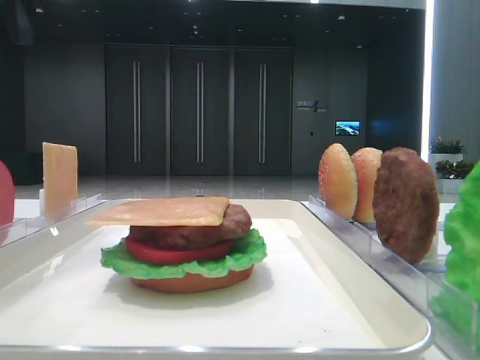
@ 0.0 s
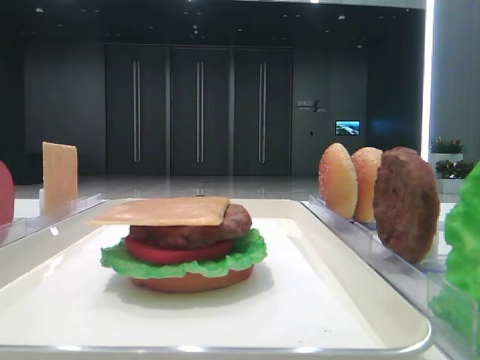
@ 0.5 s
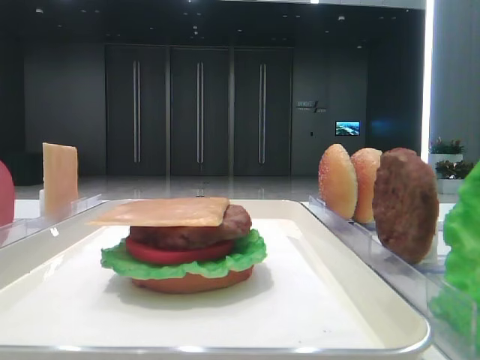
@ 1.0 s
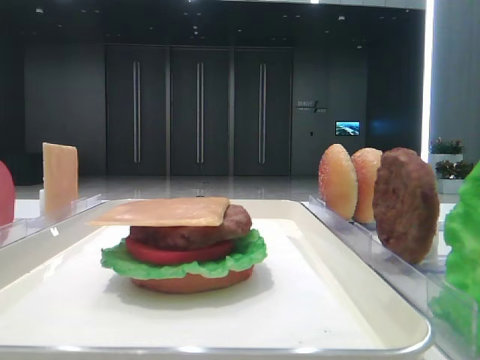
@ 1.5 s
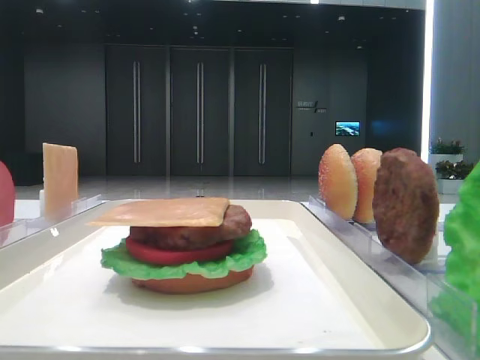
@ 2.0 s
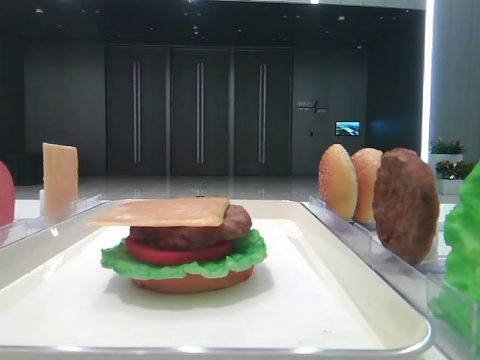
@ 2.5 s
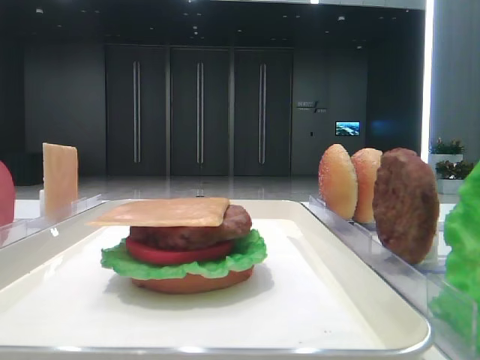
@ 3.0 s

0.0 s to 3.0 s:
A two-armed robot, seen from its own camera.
0.0 to 1.5 s: The left gripper moves backward and to the left, roughly 25 cm.

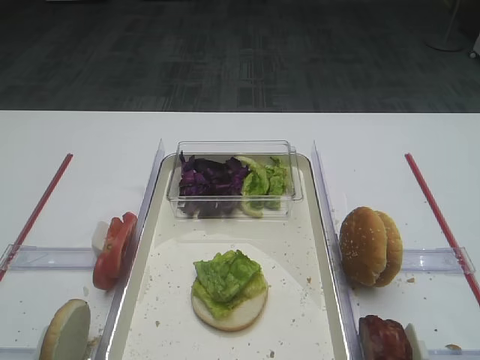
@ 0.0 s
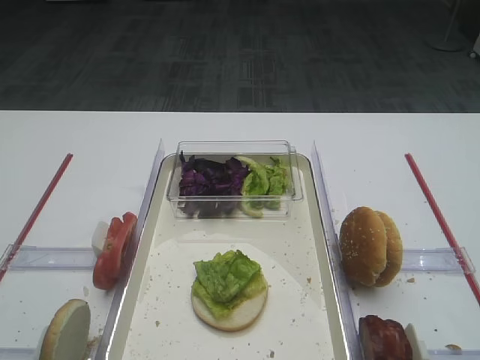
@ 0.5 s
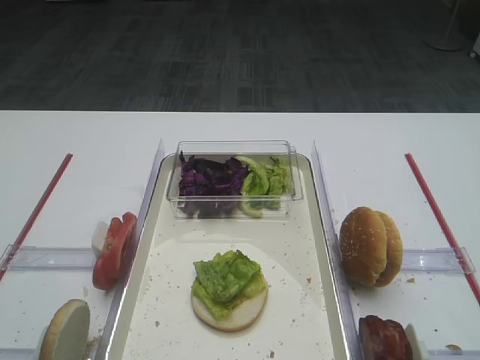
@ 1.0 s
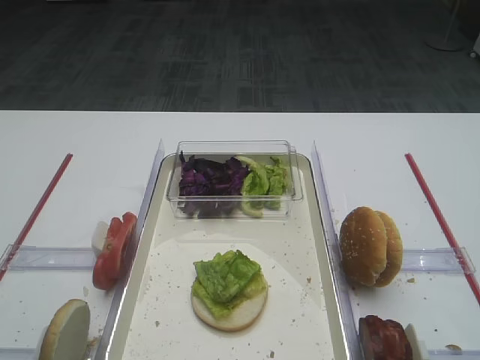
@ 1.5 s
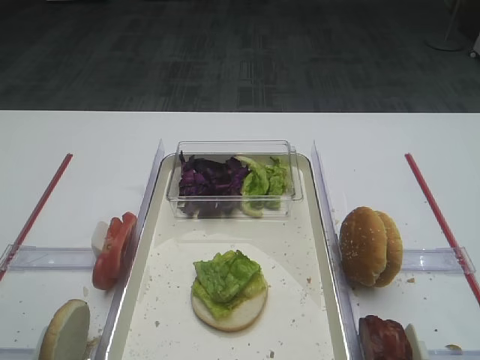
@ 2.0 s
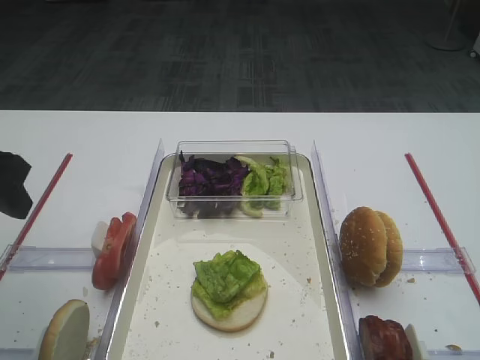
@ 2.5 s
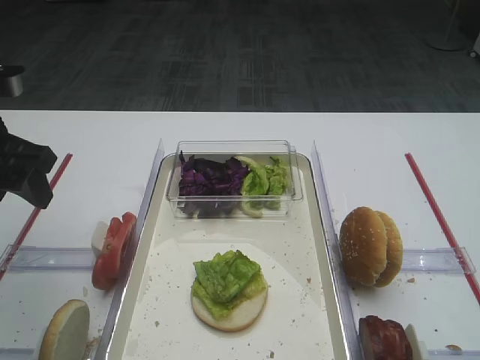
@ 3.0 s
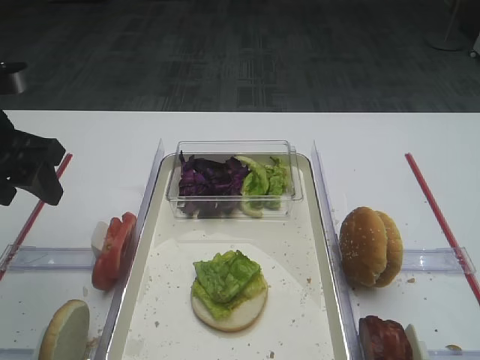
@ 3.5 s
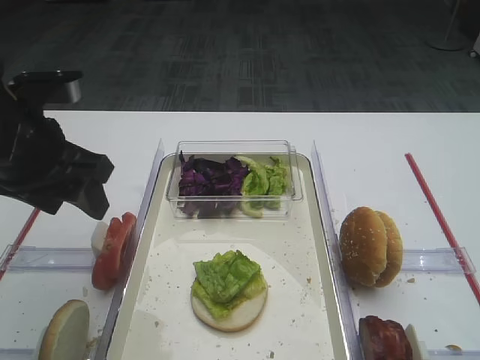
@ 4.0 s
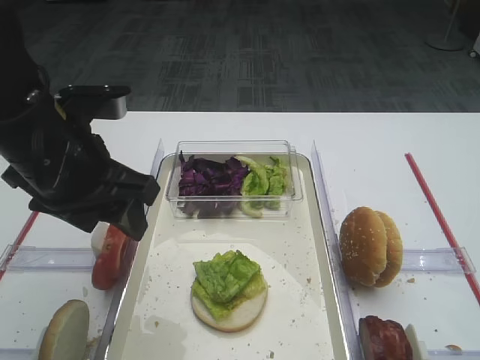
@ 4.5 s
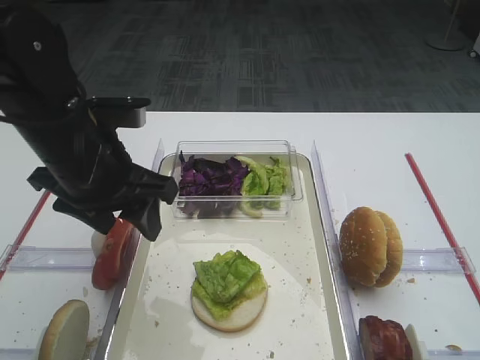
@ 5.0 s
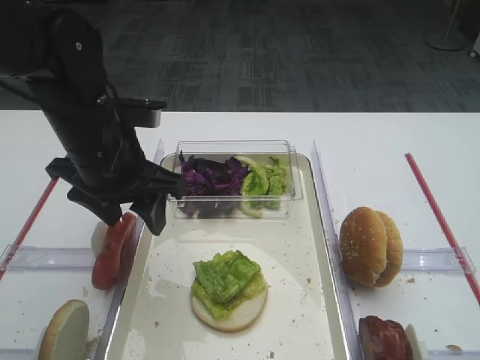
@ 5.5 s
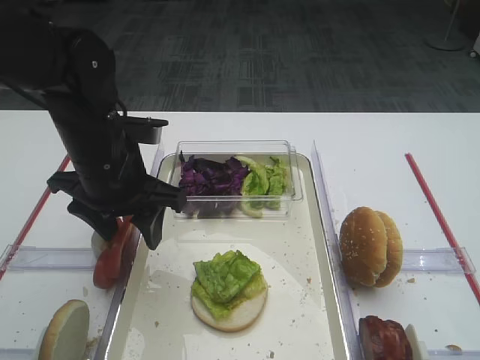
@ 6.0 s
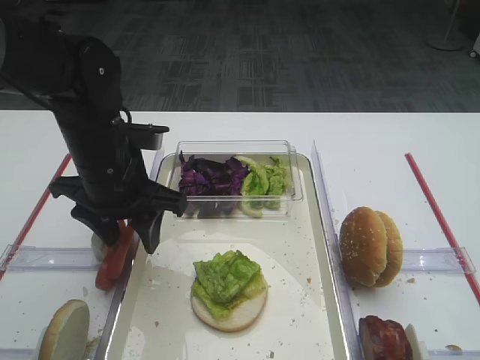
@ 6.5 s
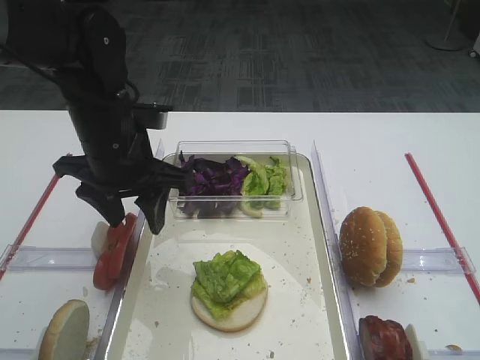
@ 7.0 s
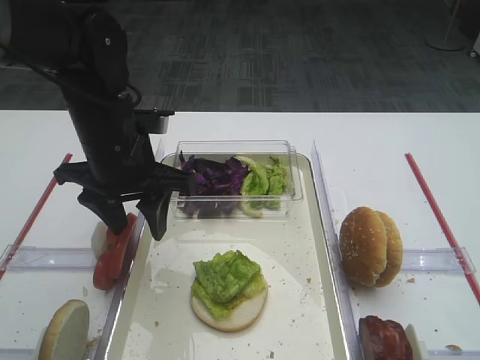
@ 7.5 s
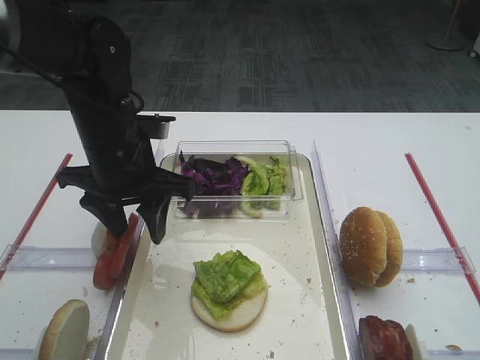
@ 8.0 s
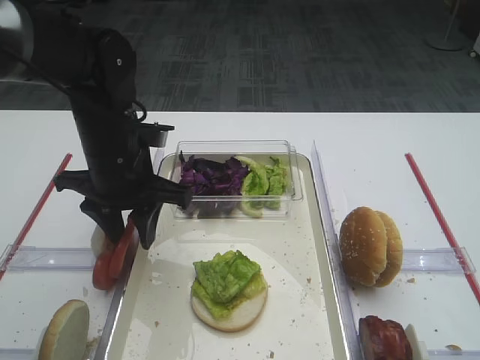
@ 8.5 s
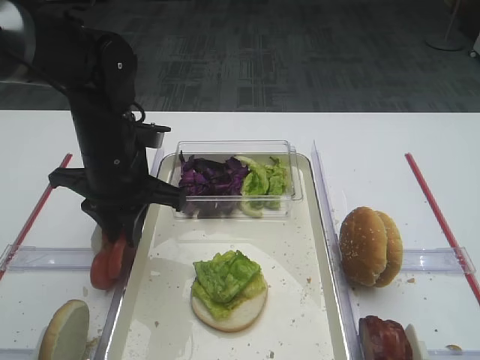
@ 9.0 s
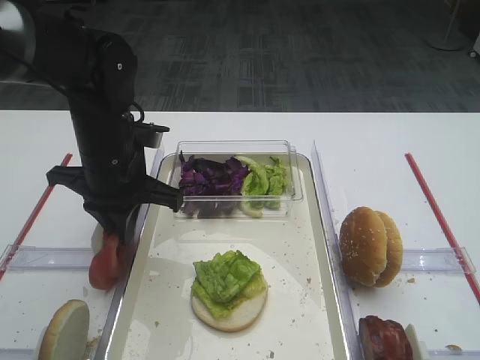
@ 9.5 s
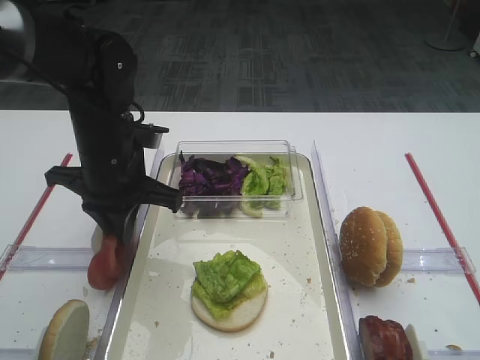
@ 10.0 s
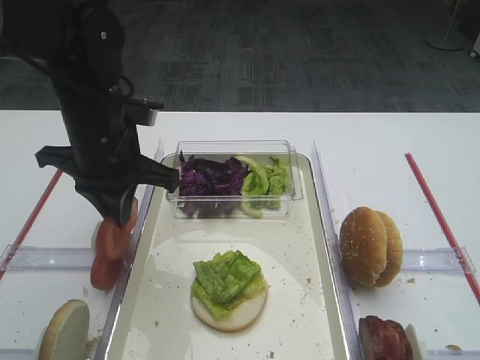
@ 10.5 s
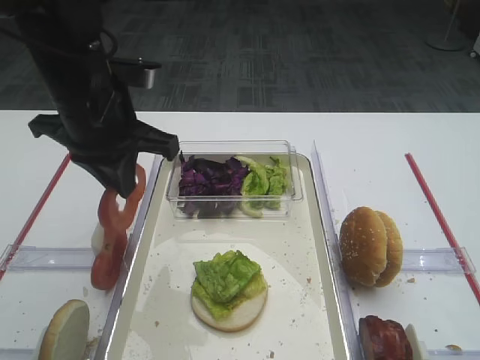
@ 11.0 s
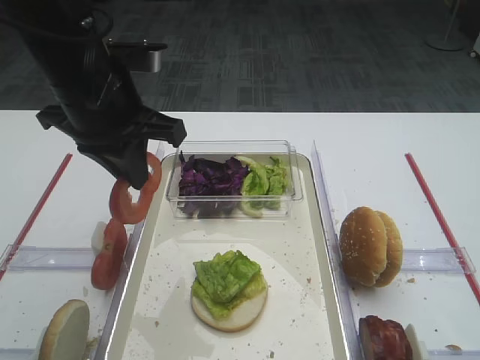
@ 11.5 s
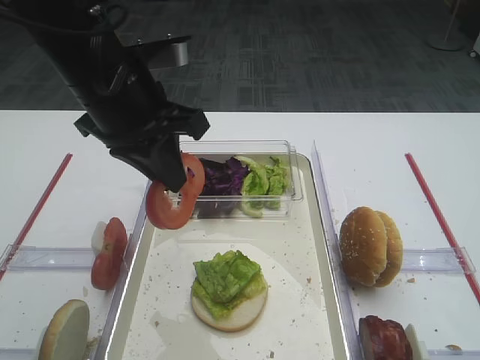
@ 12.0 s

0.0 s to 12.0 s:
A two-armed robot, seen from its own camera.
Step, 0.0 to 11.0 s: Pick up the tomato slice with the left gripper.
2.0 to 4.0 s: The left gripper moves forward and downward, approximately 20 cm.
4.0 to 6.0 s: The left gripper heads to the right, covering about 5 cm.
6.0 to 8.0 s: There are only small adjustments of the grippers.
8.0 to 10.0 s: The left gripper closes.
10.0 to 12.0 s: The left gripper goes roughly 10 cm upward.

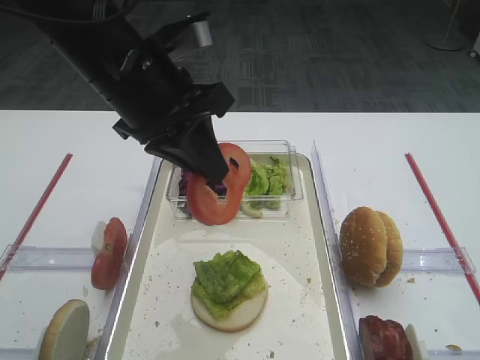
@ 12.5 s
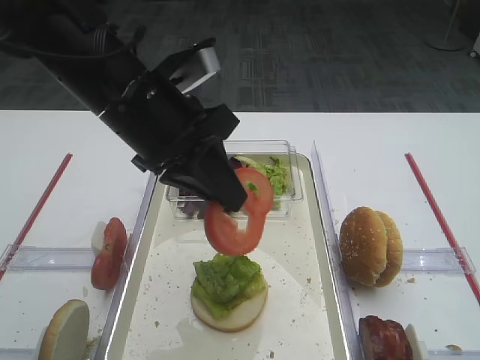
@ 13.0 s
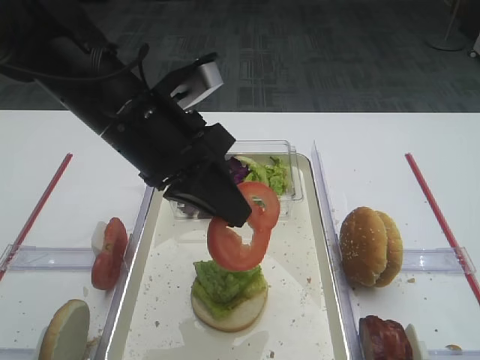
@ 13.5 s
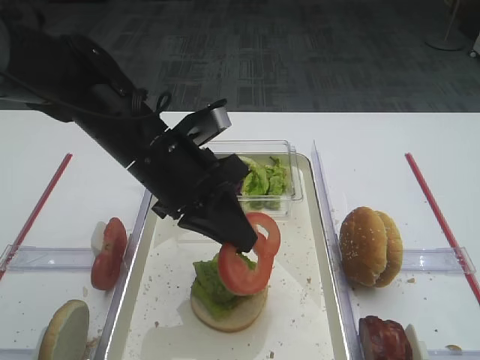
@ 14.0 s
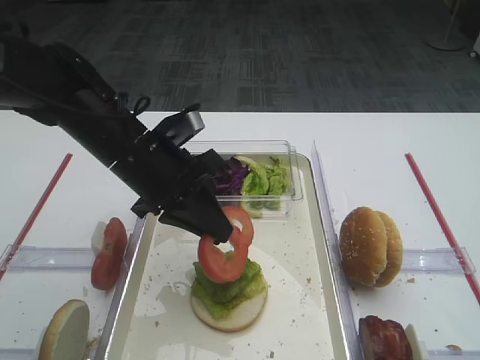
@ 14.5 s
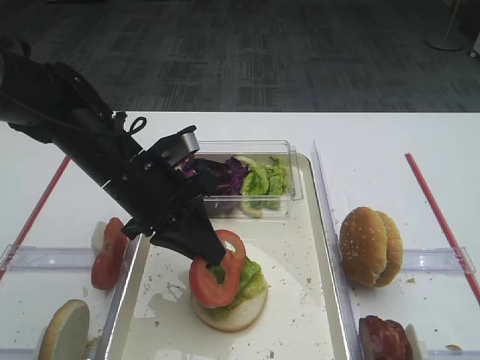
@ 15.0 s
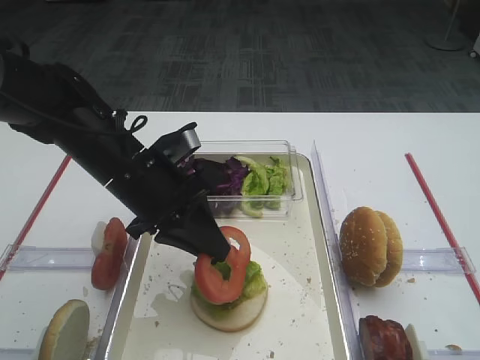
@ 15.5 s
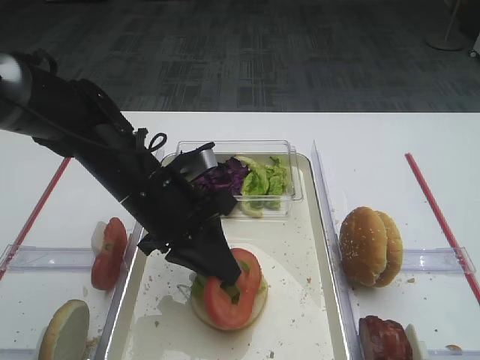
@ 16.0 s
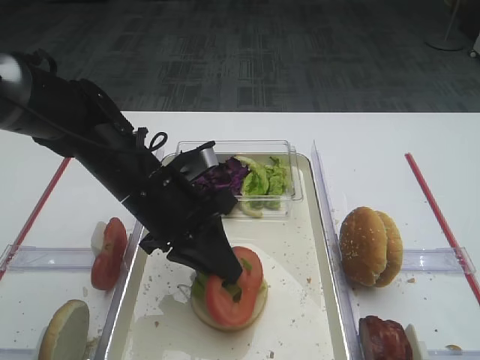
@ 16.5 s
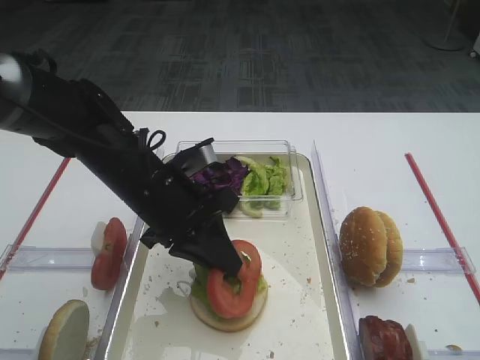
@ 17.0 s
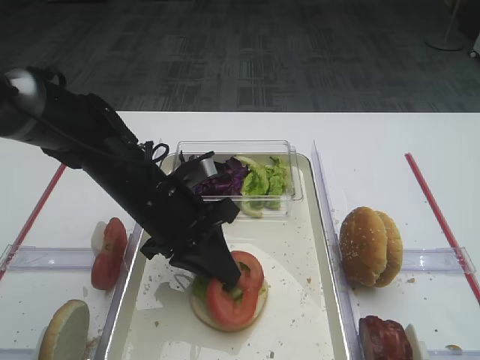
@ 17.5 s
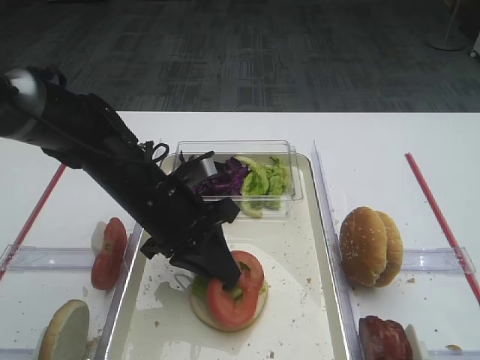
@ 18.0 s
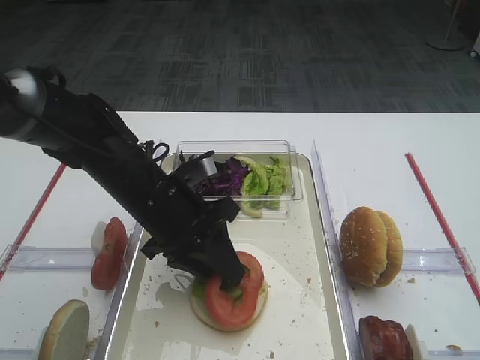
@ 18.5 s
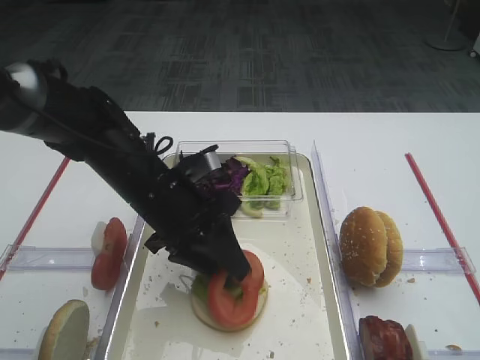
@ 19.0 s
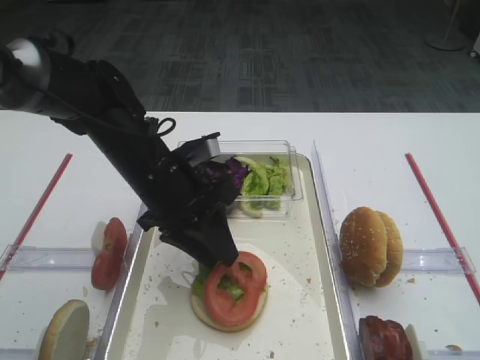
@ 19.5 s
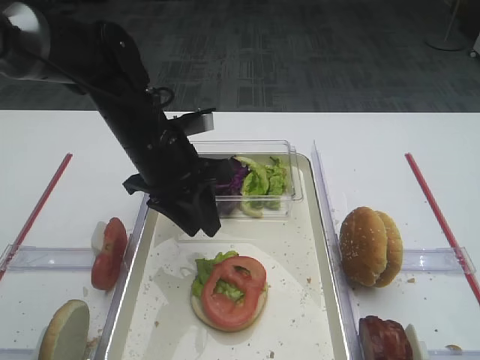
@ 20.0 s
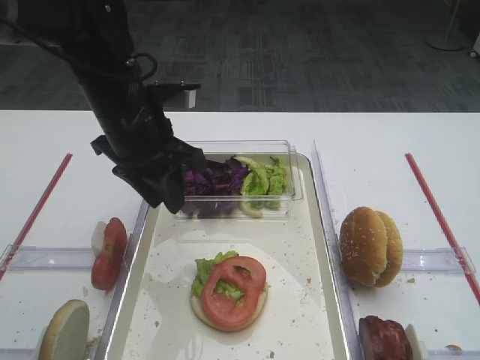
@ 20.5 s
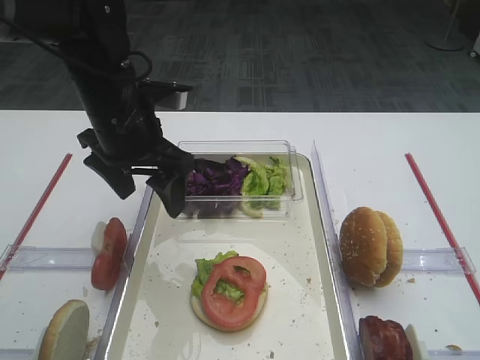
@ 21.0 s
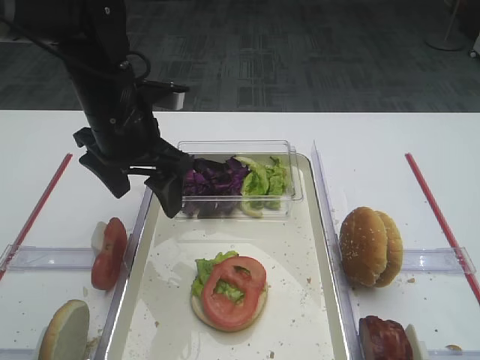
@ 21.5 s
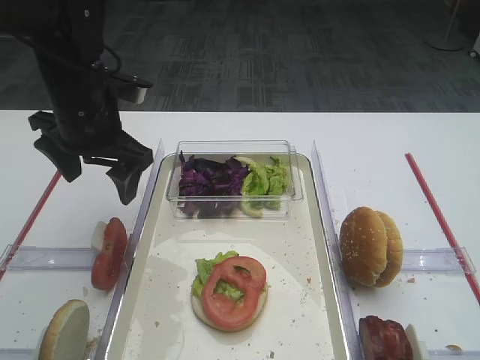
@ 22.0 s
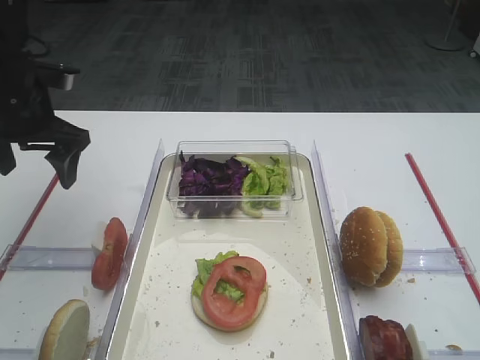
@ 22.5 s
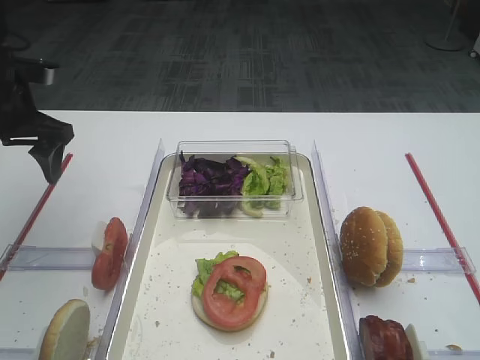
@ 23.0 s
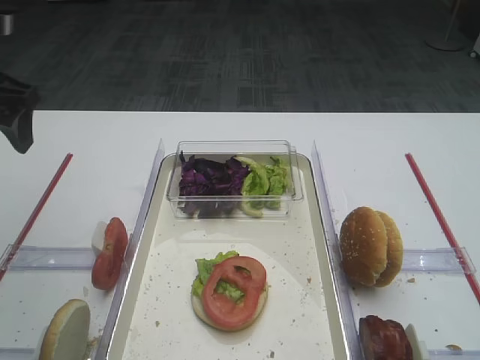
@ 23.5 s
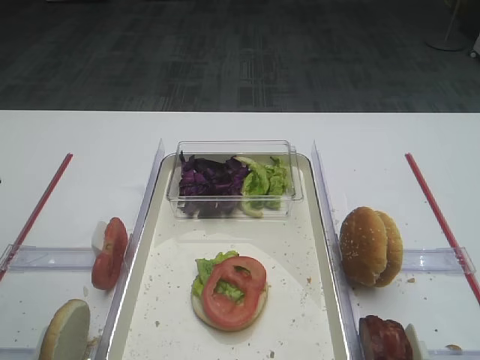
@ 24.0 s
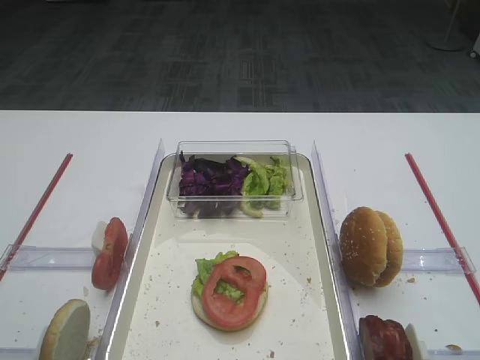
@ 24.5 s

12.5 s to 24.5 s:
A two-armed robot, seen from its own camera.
Step, 12.5 to 19.5 s: Place the tomato slice on the lettuce leaf with the left gripper.
12.5 to 14.5 s: The left gripper heads downward, covering roughly 10 cm.
14.5 to 18.5 s: The grippers stay close to where they were, moving slightly.
18.5 to 20.5 s: The left gripper travels upward by roughly 10 cm.
20.5 to 22.5 s: The left gripper moves to the left, about 15 cm, and opens up.
22.5 to 24.5 s: The left gripper shifts about 25 cm backward.
